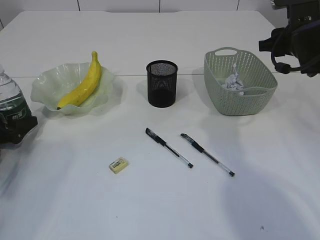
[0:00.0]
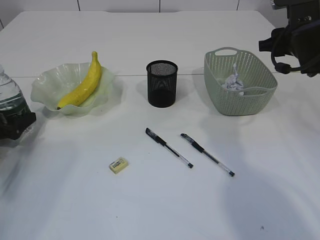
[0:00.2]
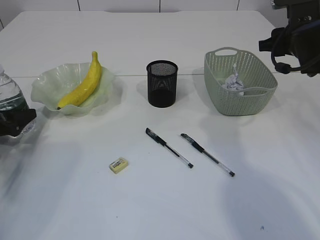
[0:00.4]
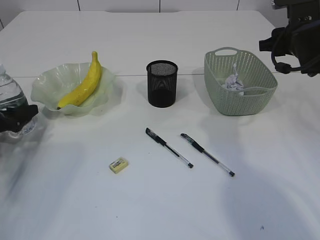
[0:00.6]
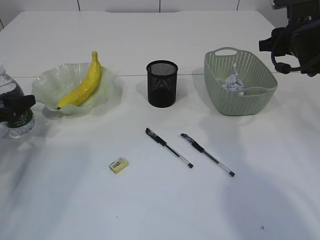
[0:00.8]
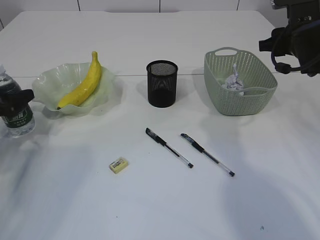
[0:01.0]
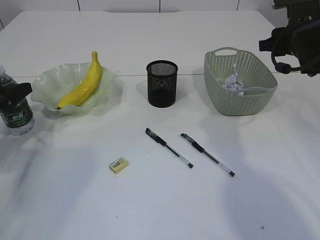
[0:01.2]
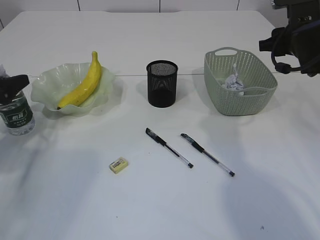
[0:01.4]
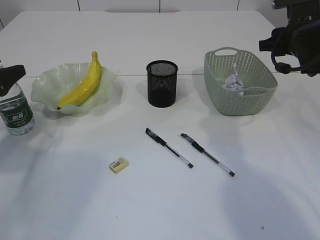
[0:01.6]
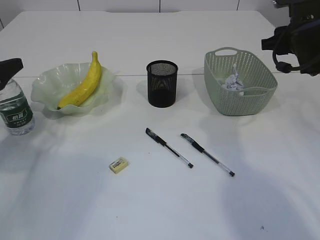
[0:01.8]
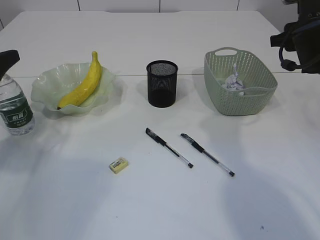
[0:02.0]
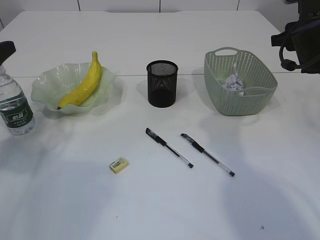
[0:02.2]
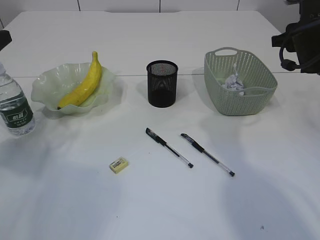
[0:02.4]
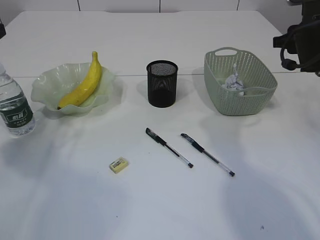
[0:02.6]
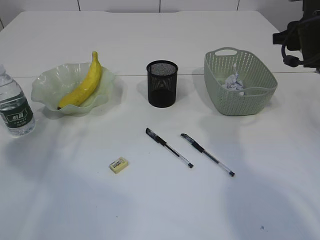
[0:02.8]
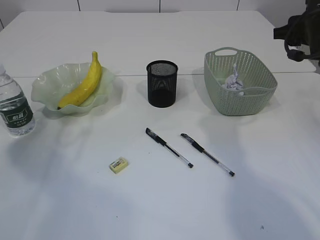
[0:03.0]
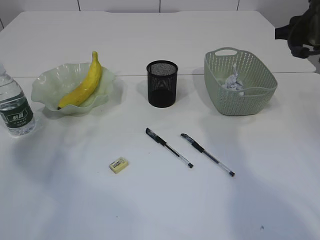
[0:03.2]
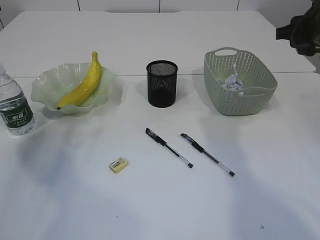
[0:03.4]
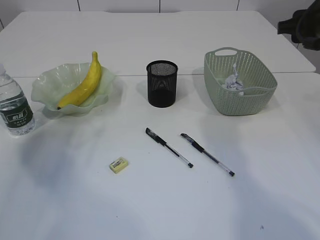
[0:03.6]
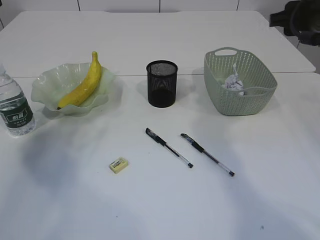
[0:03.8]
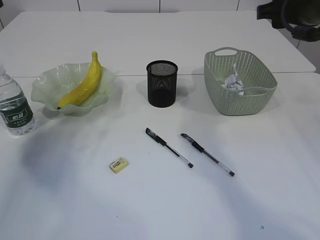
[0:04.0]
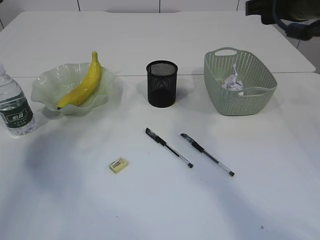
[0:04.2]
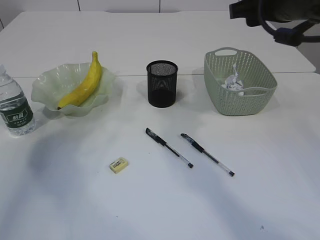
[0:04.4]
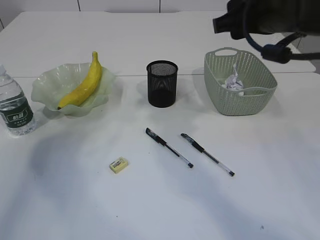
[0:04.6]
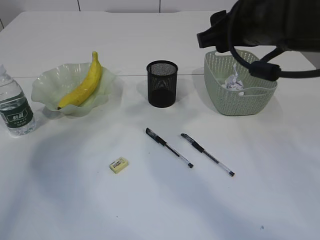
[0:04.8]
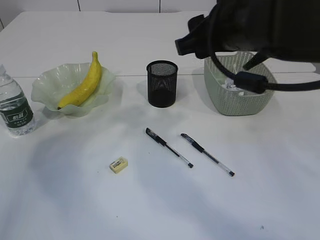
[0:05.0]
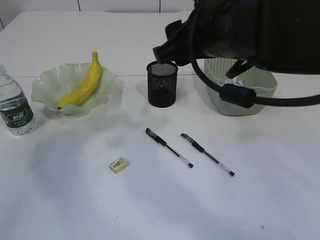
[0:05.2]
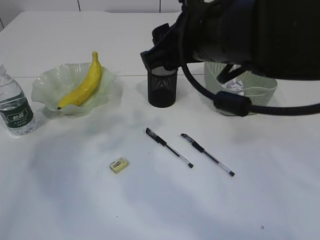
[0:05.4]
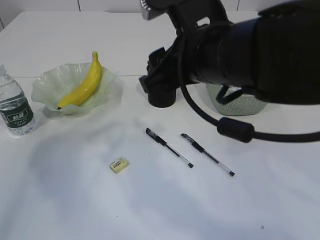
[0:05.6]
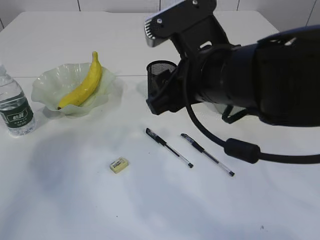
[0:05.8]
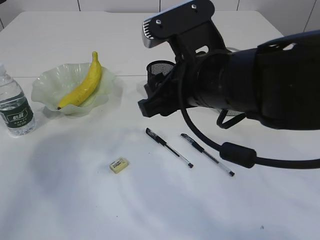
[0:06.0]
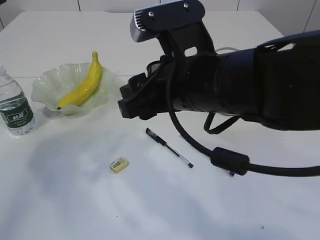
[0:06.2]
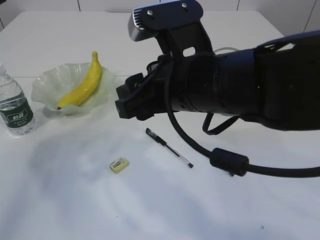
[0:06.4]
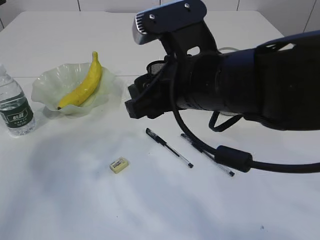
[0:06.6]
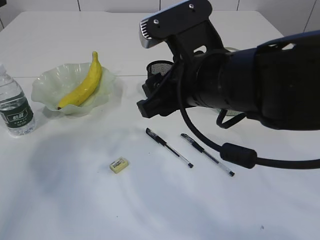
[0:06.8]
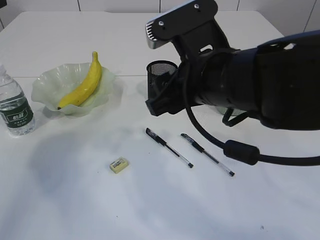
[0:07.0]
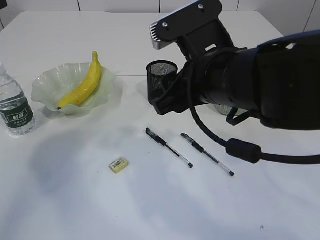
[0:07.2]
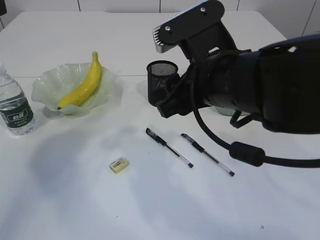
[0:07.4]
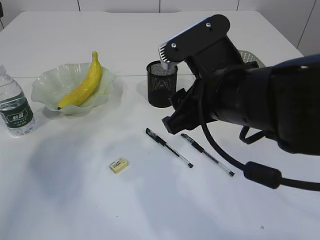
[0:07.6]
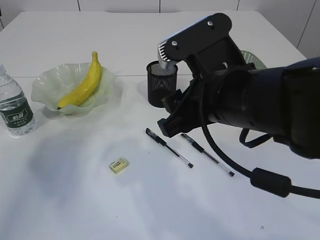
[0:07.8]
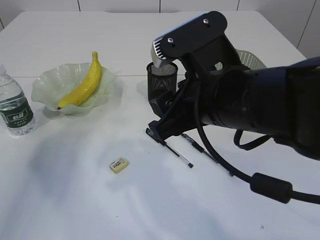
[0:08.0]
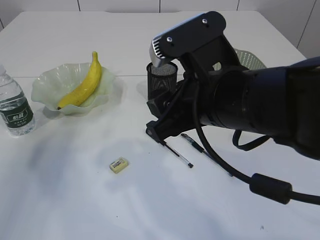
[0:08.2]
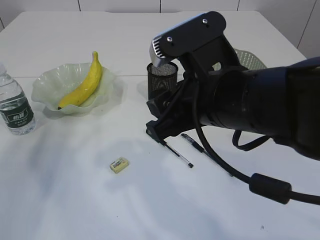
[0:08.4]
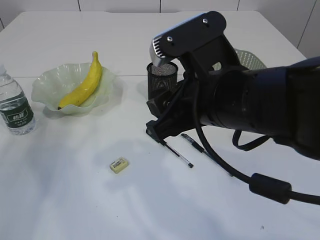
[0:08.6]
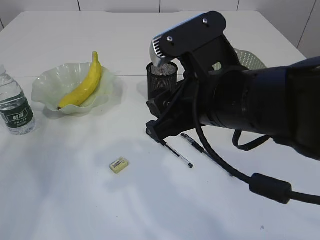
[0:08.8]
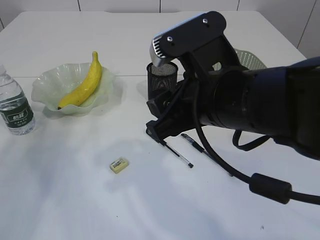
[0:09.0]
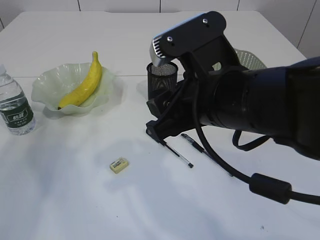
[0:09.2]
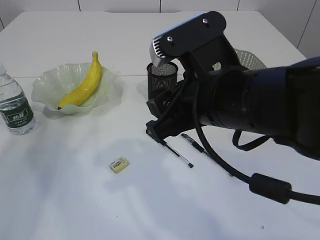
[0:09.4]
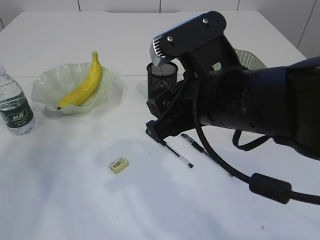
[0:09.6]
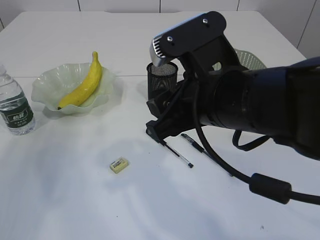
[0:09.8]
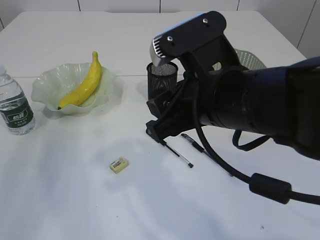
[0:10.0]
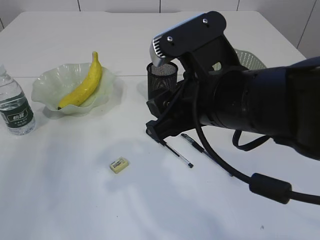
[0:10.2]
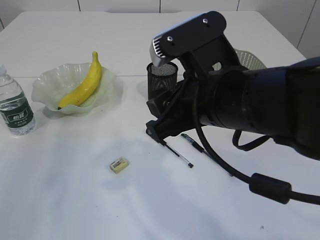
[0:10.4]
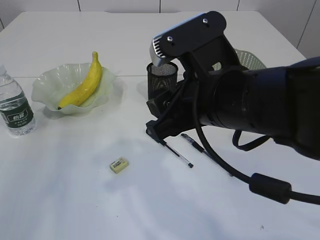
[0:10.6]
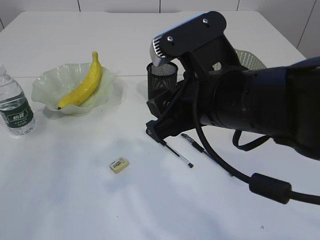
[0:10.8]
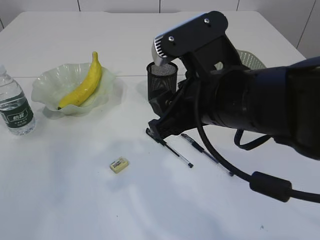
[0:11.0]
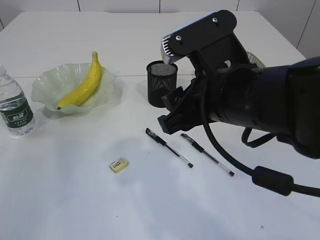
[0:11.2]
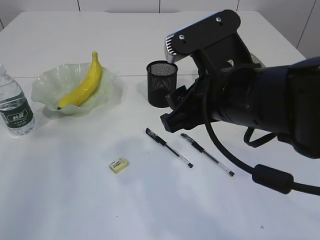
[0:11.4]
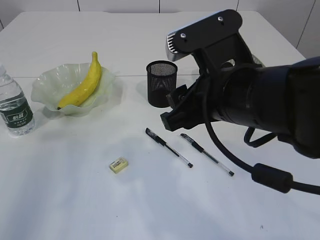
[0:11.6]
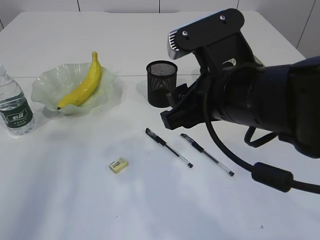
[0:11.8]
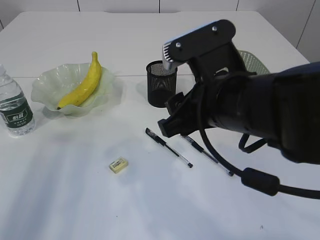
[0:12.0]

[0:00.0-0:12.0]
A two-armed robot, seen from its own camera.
Step, 0:00.0 to 0:02.2: Place the bottle.
0:00.0 to 0:01.6: The left gripper goes some 10 cm upward.
0:01.6 to 0:03.0: The left gripper moves upward, about 10 cm.
0:03.0 to 0:04.4: The right gripper is displaced to the left, upward and backward by approximately 15 cm. The left gripper shifts some 5 cm upward.
0:04.4 to 0:06.0: The right gripper heads to the left, backward and downward, covering approximately 15 cm.
0:06.0 to 0:07.6: The grippers make only small movements.
0:07.6 to 0:09.0: The left gripper is displaced to the left by some 5 cm.
0:10.4 to 0:12.0: The left gripper goes approximately 5 cm to the right.

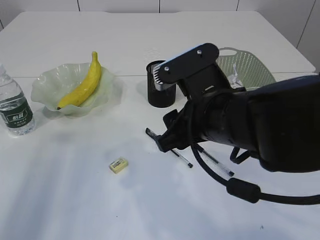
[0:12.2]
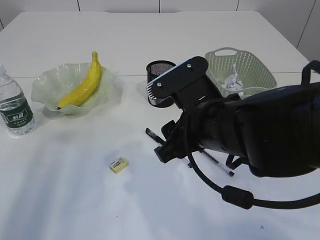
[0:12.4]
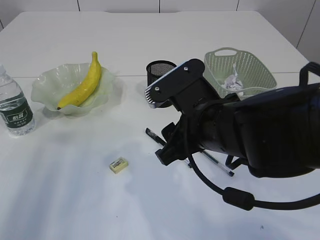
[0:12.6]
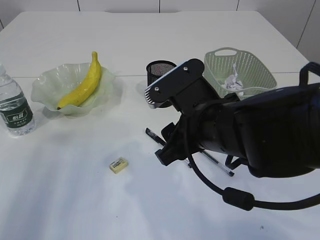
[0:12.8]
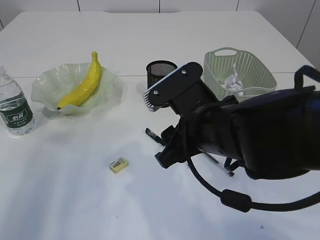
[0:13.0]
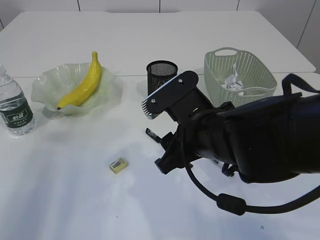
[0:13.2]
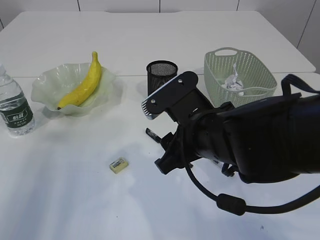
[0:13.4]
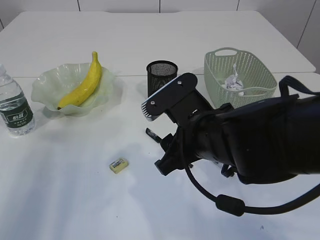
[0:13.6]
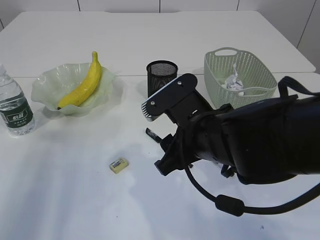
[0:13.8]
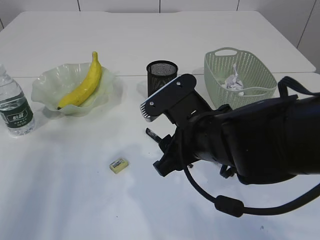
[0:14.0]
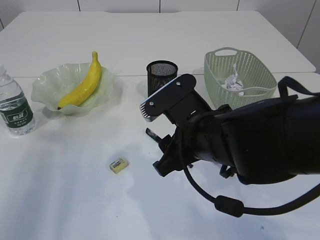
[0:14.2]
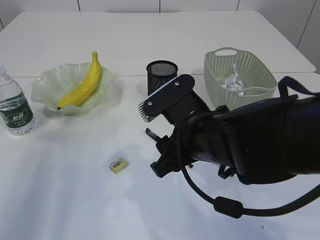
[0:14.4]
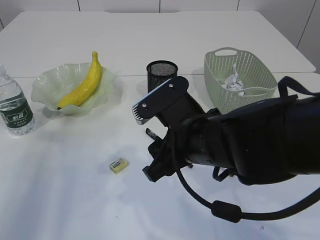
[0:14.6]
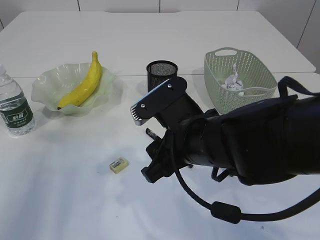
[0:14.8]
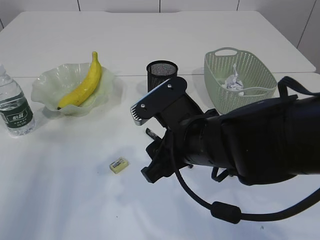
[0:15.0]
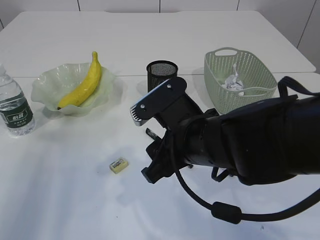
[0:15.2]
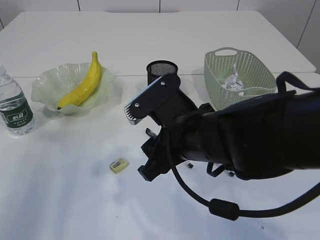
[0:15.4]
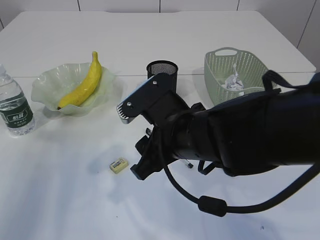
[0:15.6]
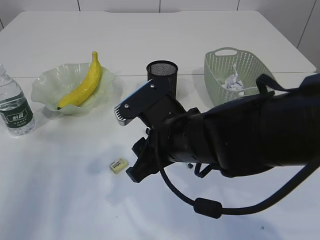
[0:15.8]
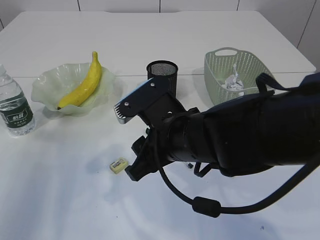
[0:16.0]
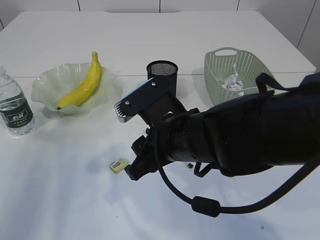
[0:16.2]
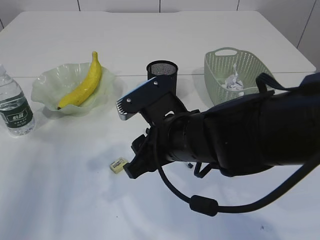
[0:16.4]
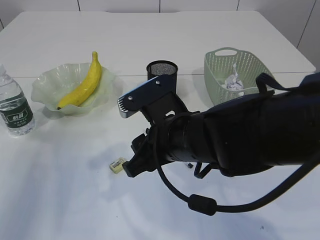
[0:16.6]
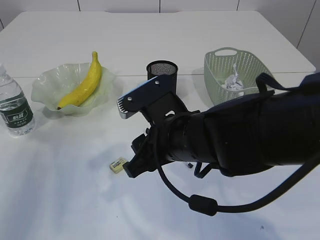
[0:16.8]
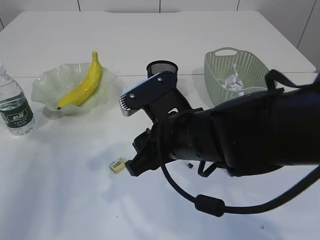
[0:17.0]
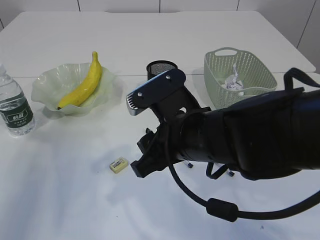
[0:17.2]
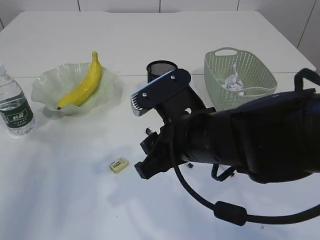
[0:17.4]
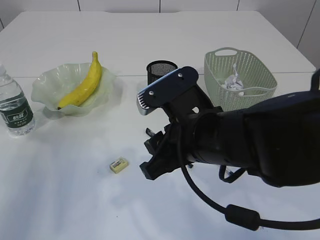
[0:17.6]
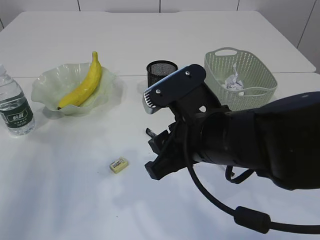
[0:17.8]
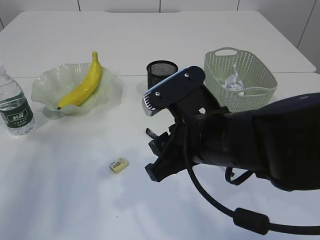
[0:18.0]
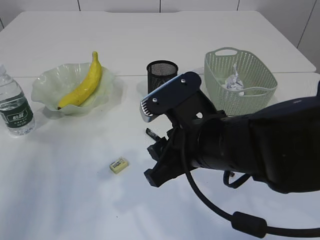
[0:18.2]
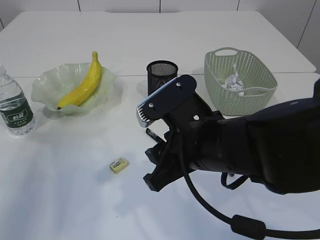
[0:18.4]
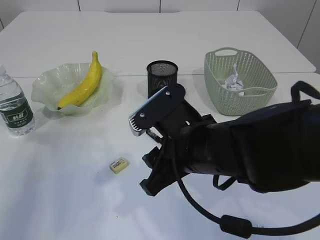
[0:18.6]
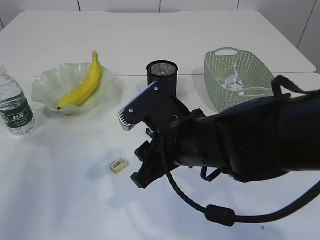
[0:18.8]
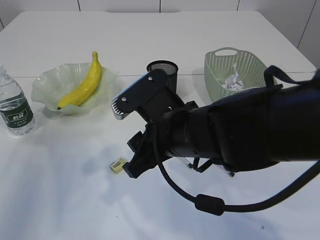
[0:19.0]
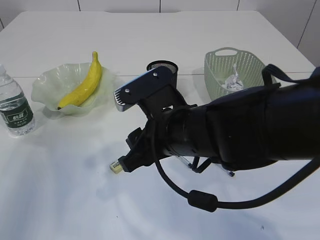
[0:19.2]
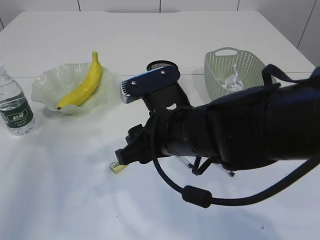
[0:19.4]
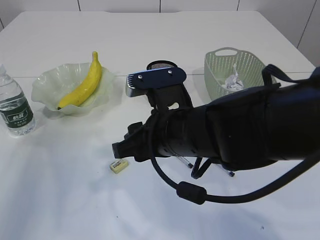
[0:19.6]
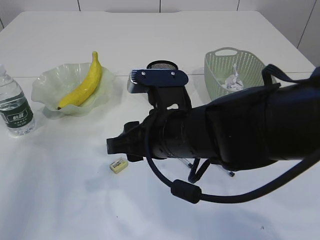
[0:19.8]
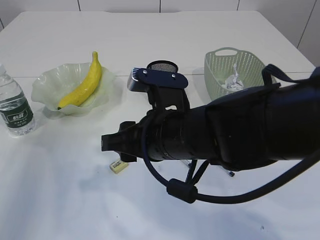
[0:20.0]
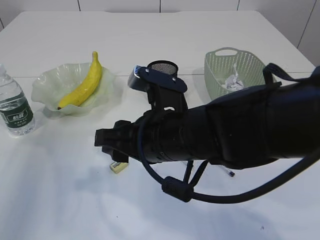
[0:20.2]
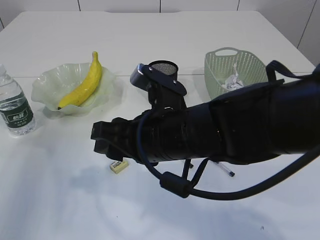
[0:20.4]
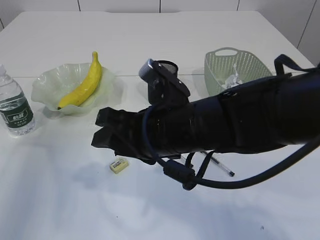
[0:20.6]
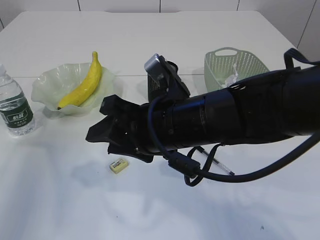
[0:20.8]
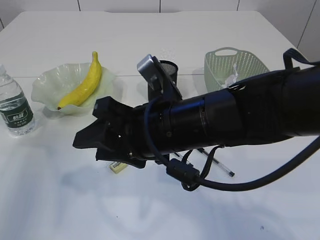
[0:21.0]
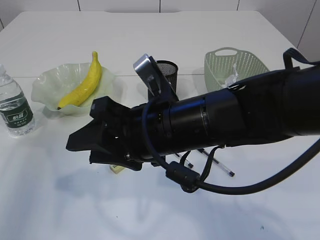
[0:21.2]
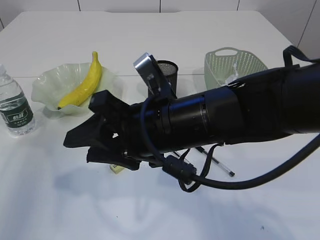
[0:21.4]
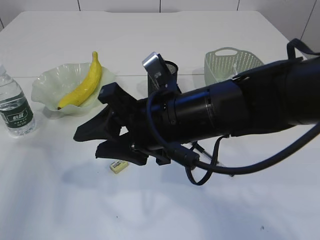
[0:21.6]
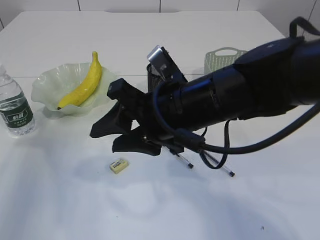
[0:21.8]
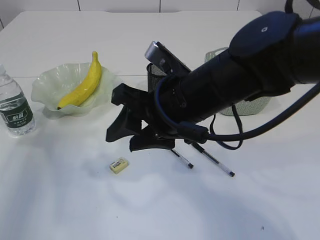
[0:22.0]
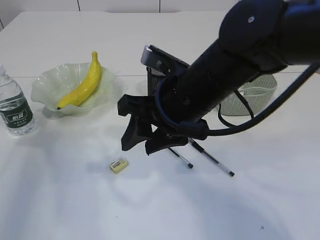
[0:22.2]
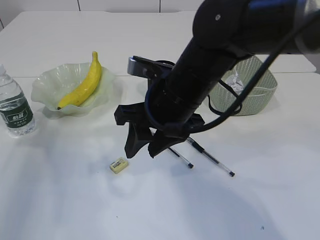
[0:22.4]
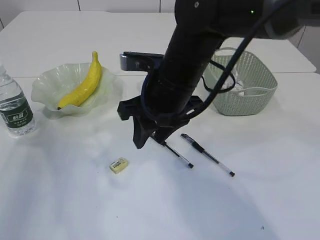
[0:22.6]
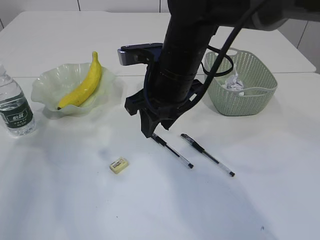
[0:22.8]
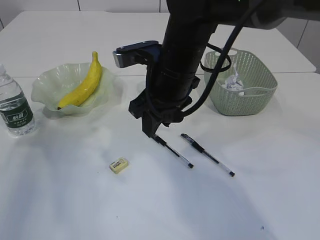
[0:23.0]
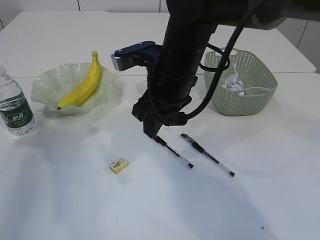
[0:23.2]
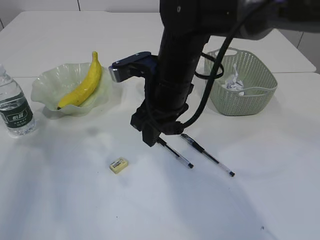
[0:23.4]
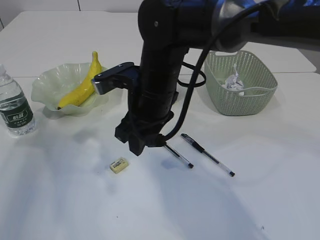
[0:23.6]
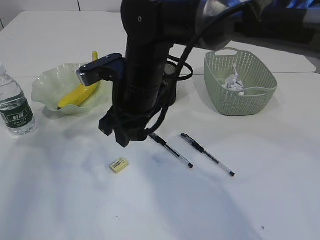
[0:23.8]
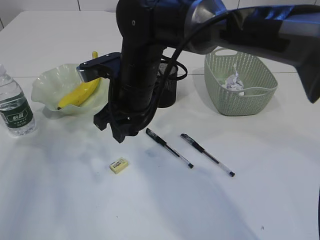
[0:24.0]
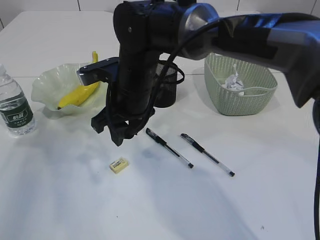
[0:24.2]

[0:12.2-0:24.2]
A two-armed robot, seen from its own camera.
0:12.2 to 0:15.2: The grippers make only small movements.
0:15.2 to 0:18.2: There are only small adjustments of the grippers.
0:21.2 to 0:22.6: The right gripper goes some 10 cm forward.
0:22.6 to 0:24.2: The right gripper is displaced to the left by about 5 cm.
